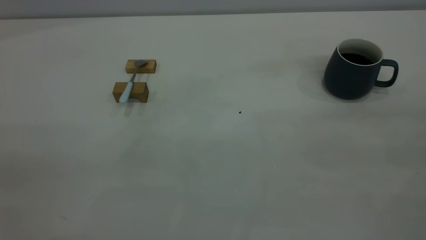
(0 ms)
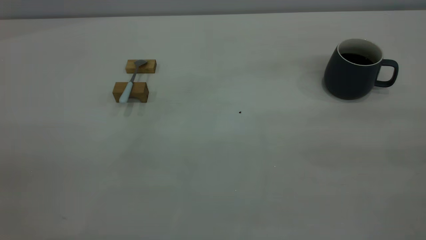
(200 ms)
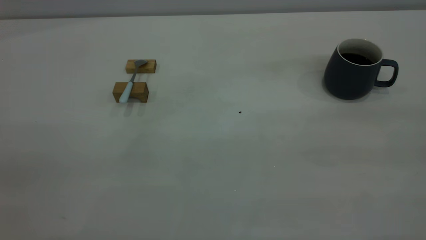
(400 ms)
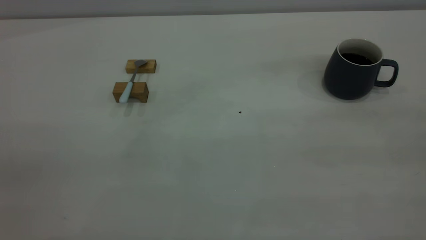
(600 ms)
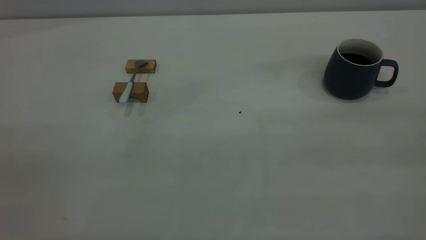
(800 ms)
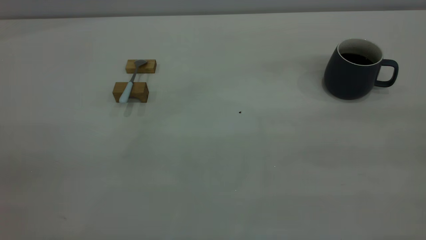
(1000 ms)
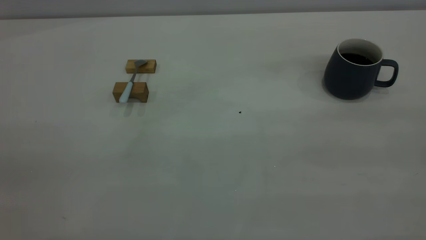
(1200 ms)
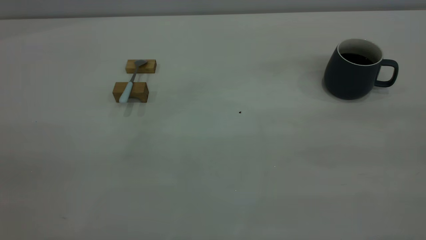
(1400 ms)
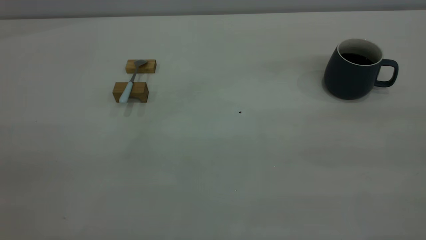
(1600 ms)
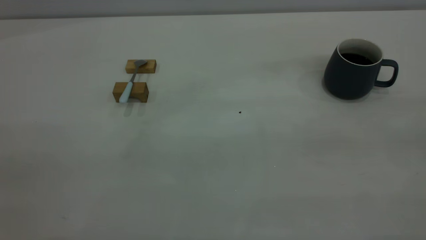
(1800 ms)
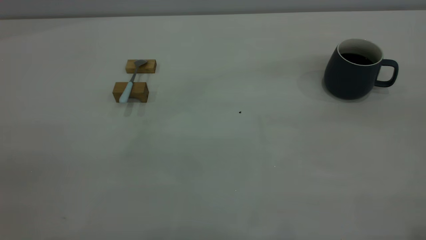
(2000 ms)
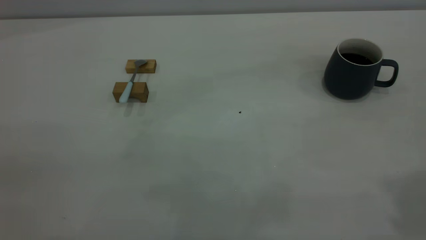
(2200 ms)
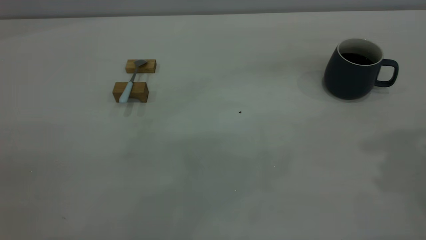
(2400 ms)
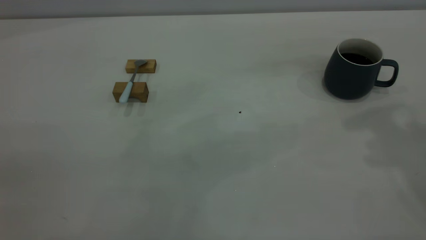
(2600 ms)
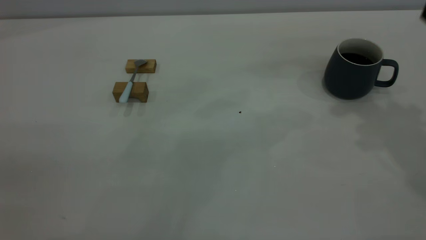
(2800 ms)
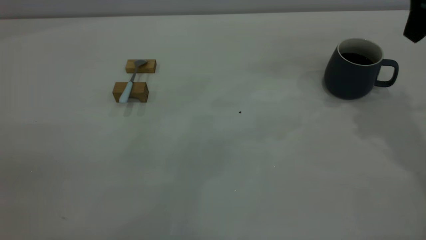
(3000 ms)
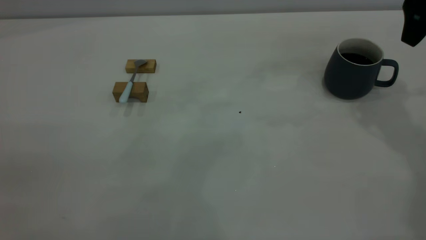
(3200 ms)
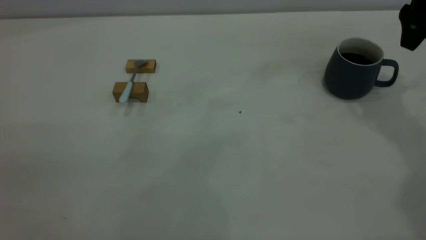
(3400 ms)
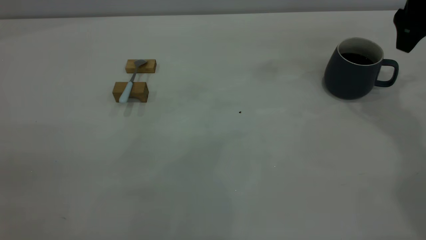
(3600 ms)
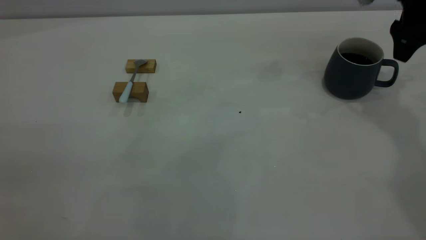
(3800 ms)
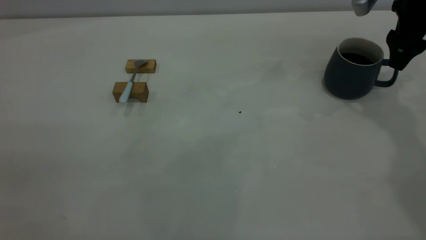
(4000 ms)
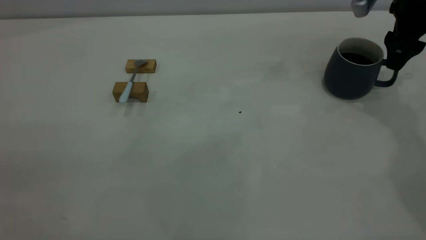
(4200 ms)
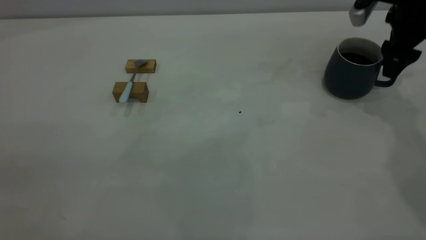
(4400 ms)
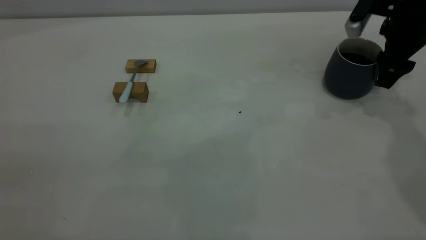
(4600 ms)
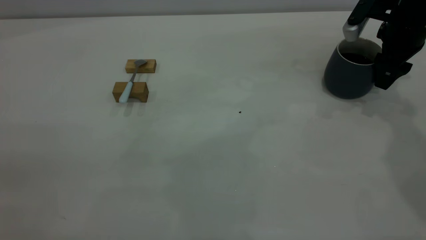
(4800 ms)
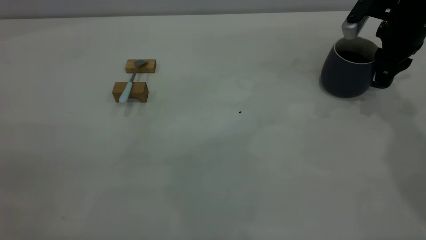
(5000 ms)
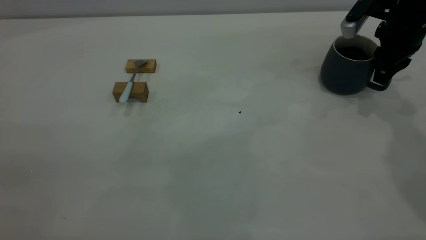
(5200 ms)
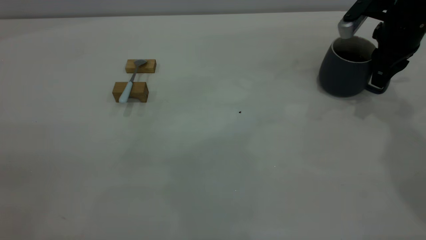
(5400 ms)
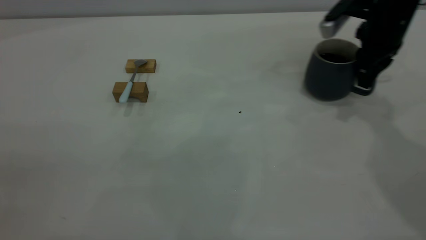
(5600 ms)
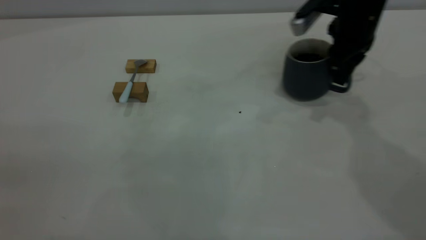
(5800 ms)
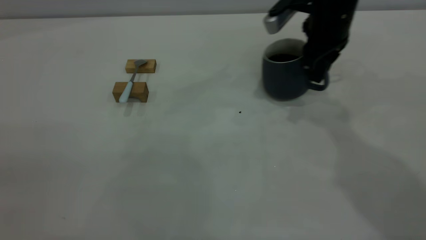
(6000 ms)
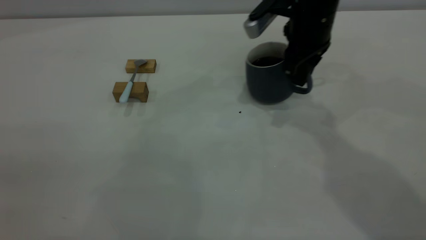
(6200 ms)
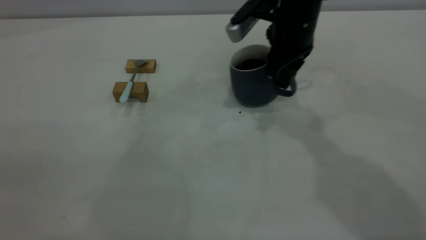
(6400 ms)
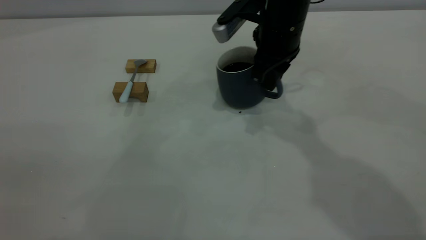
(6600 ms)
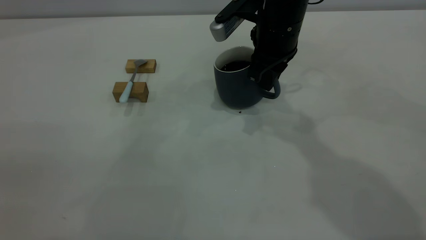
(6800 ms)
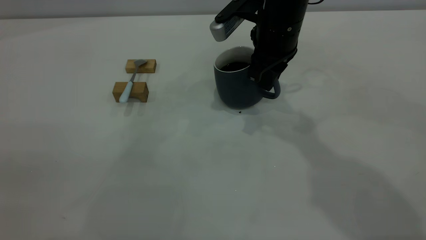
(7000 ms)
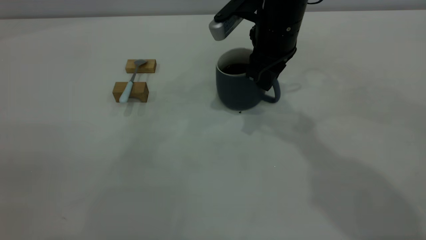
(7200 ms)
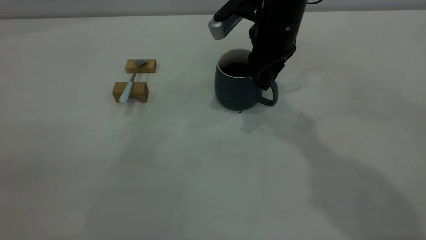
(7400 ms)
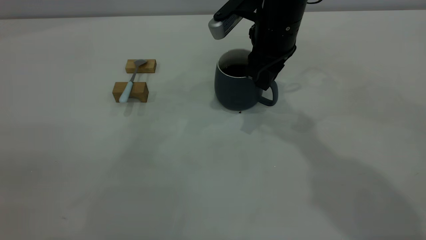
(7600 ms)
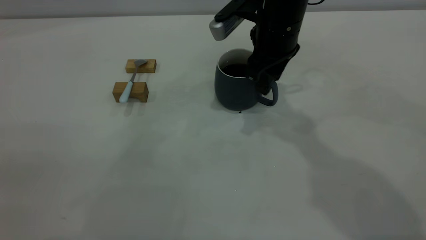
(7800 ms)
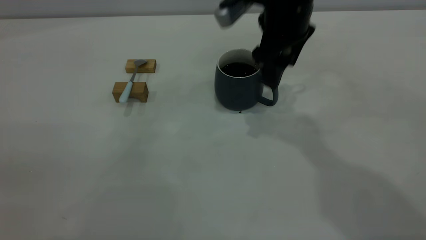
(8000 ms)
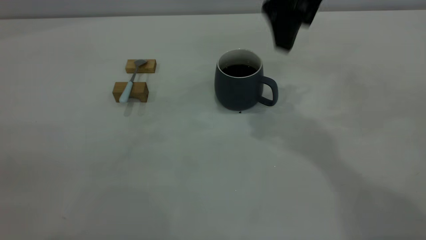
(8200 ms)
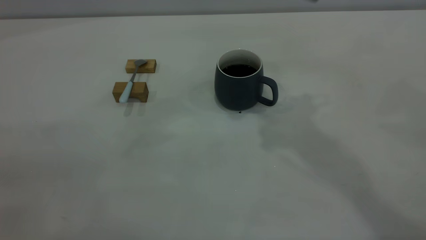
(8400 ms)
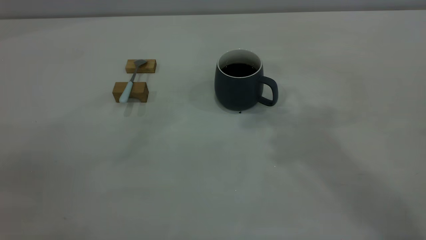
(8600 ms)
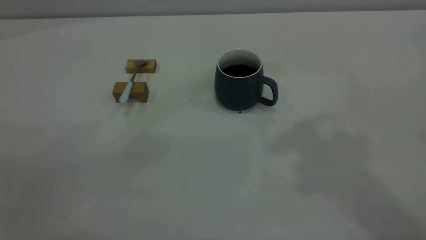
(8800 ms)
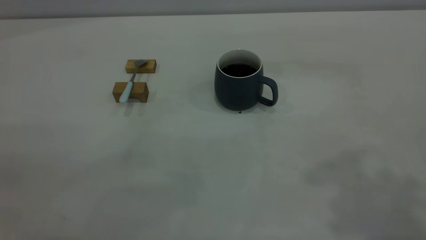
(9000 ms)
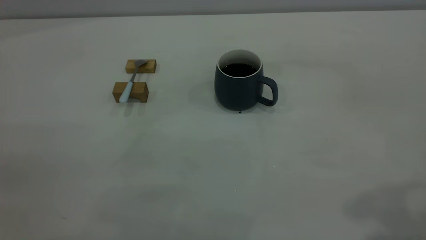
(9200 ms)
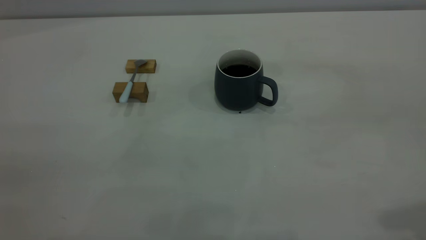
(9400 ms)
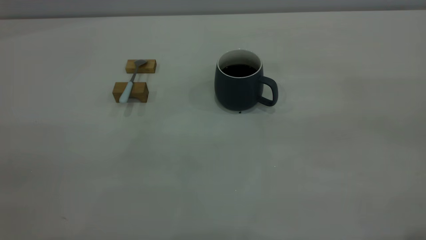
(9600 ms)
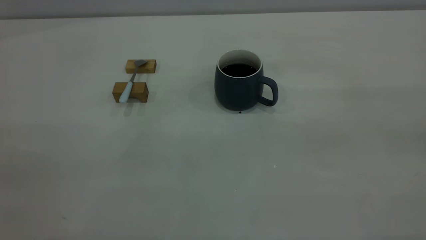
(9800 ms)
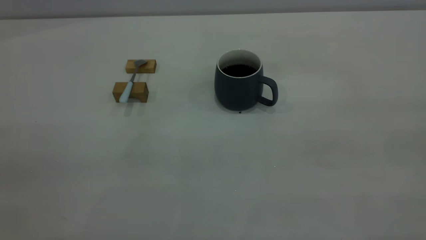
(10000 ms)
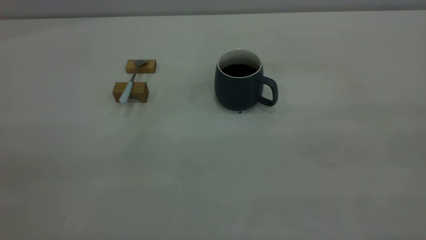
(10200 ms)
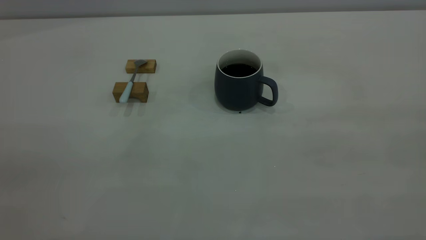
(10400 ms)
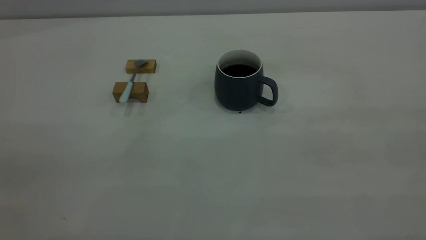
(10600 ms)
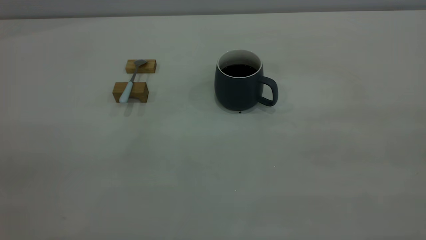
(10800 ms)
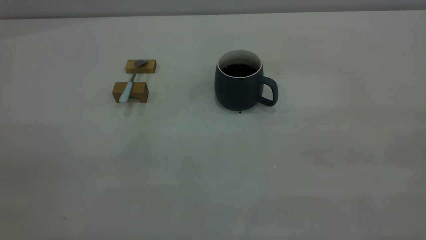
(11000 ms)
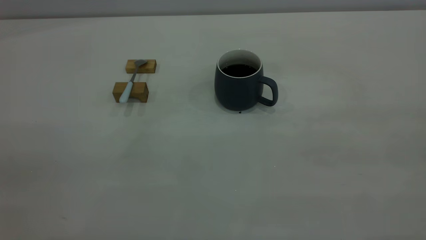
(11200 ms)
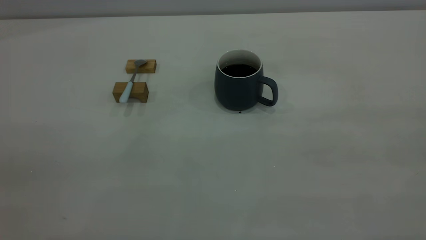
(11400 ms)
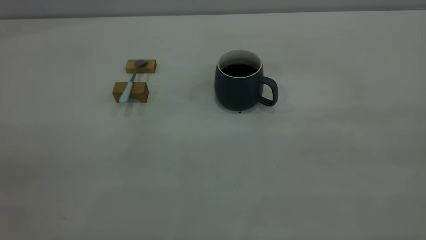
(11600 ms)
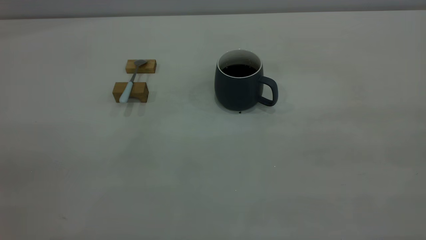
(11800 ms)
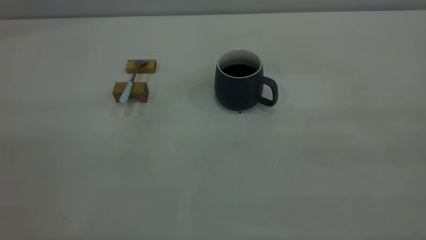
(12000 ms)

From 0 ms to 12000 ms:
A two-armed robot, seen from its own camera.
Step, from 0 ms to 8000 ms: Move the cup with coffee to the center of view.
From 1600 ms to 3000 ms: The right gripper goes approximately 35 cm forward, and opens its fingers.
From 3000 ms to 4400 ms: The right gripper travels downward and forward by approximately 15 cm.
From 4400 ms to 6000 ms: The right gripper goes some 15 cm to the left, and closes.
From 6000 ms to 7600 ms: The right gripper goes some 5 cm to the left.
From 7600 ms to 9000 ms: The right gripper moves upward, backward and to the right, approximately 40 cm, and opens its fingers.

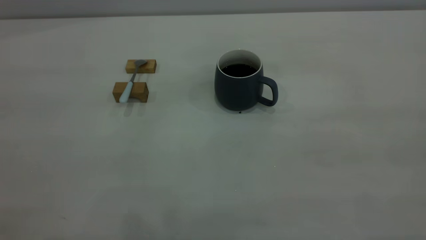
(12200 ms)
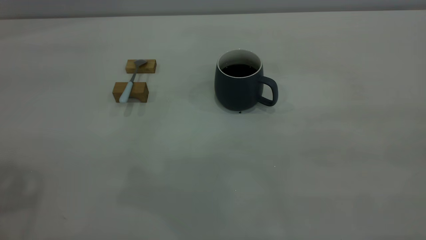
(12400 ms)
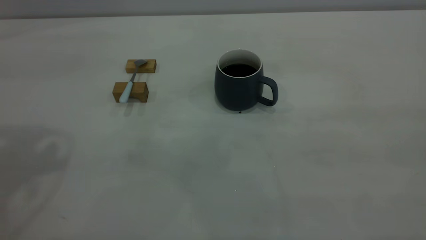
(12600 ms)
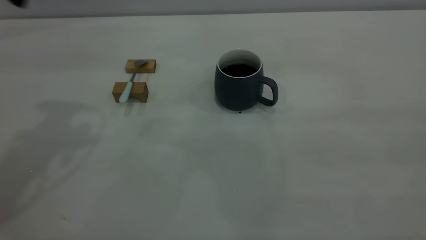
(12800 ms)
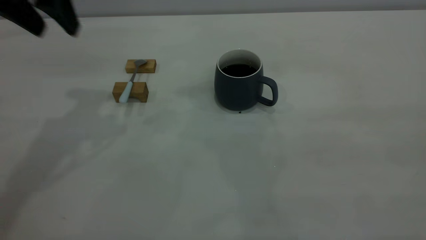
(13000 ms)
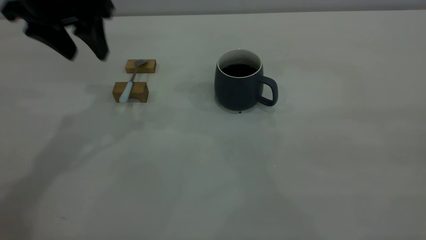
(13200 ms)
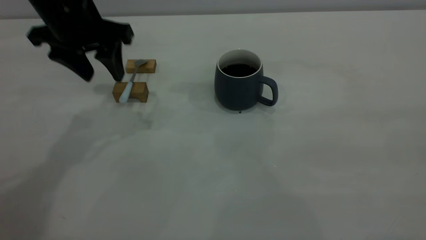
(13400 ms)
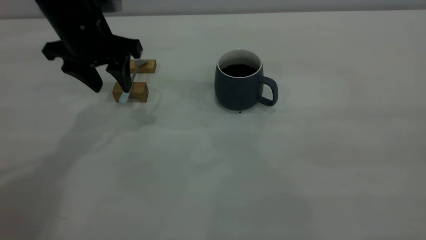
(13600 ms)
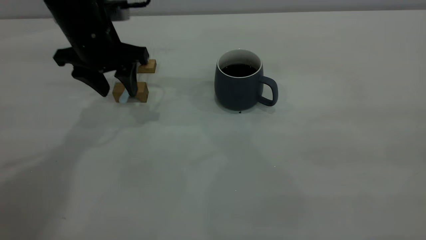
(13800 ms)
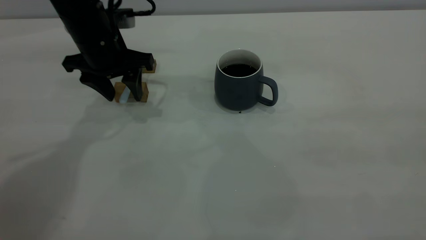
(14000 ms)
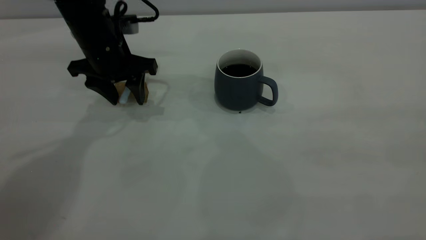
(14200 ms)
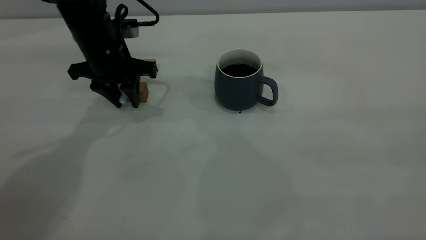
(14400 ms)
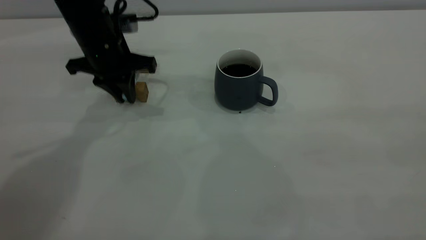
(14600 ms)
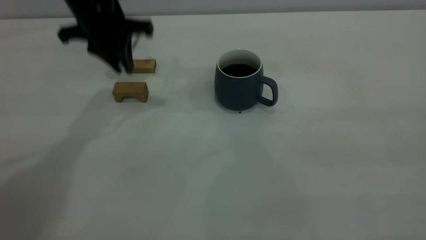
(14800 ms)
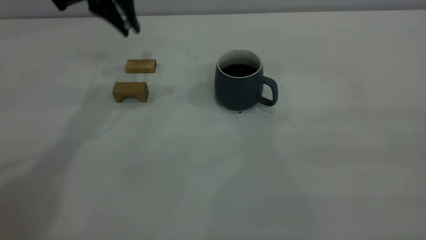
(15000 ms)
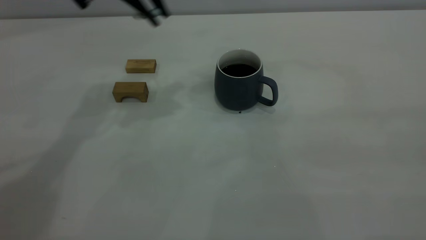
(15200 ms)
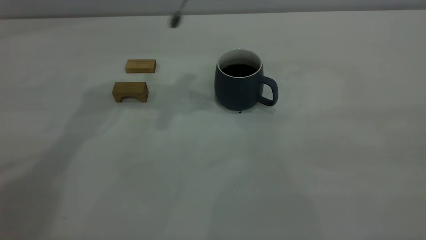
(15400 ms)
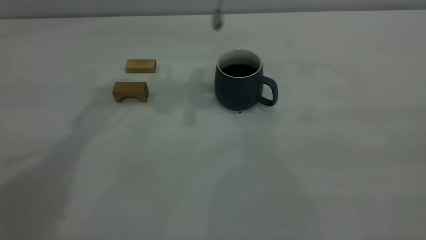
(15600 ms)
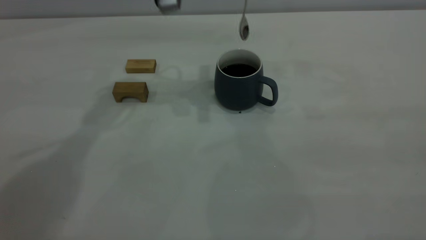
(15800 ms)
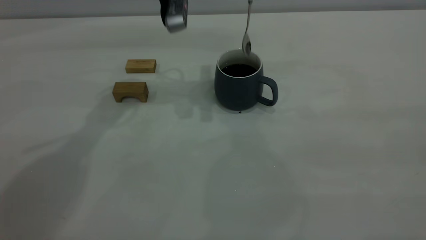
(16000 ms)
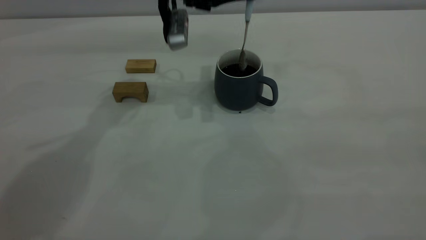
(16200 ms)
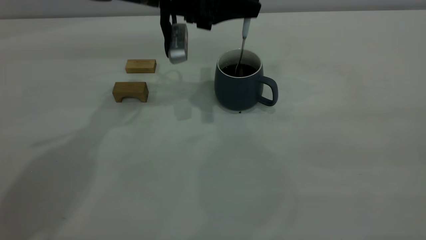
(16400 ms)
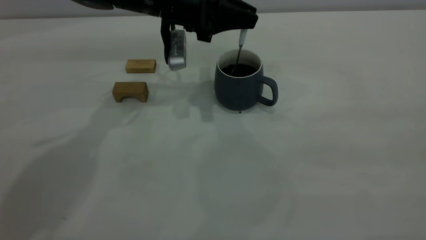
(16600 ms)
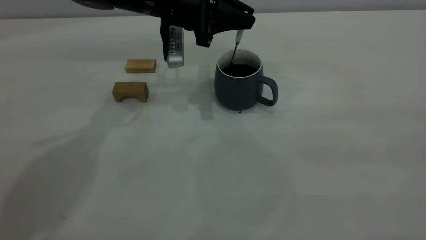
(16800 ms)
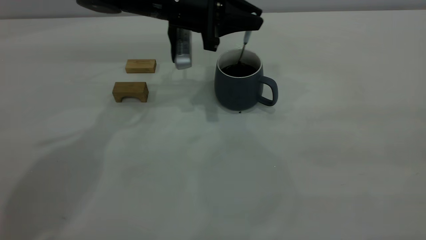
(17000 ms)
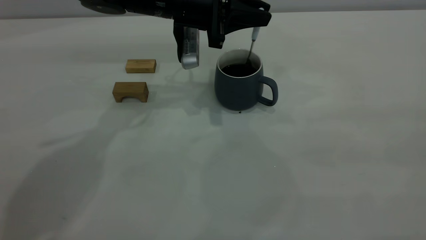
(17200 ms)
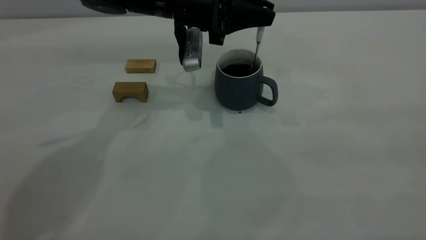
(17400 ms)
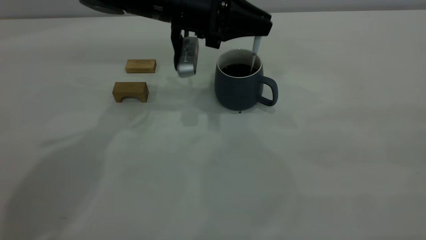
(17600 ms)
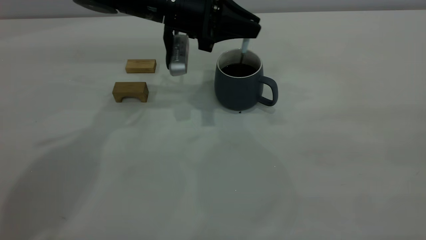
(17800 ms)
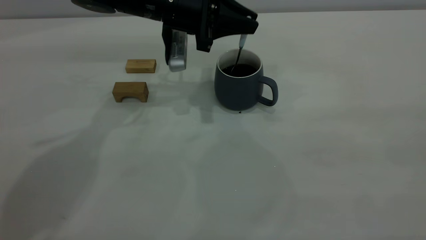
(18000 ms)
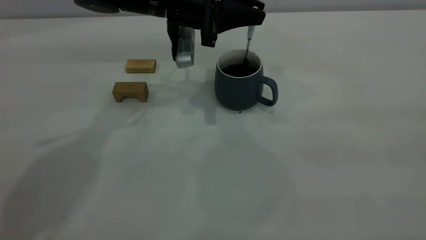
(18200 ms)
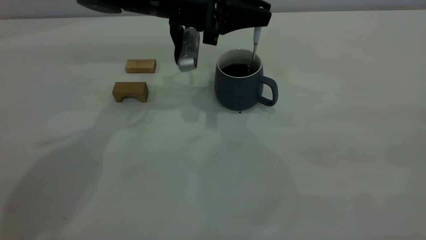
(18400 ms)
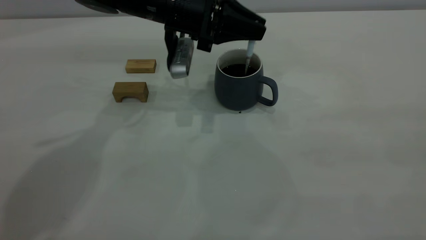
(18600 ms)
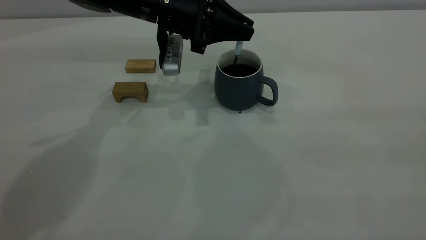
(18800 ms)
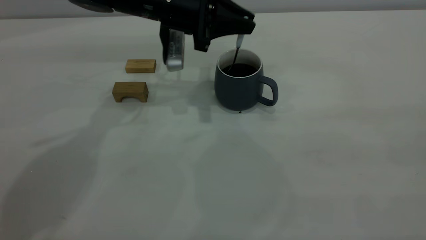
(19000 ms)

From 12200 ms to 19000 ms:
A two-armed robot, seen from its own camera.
Step, from 12200 ms to 14600 ms: Pick up the spoon.
From 12200 ms to 13600 ms: The left gripper heads forward, downward and to the right, covering roughly 40 cm.
From 13600 ms to 15000 ms: The left gripper shifts roughly 10 cm upward, and closes.
From 15000 ms to 16200 ms: The left gripper moves to the right and downward, approximately 10 cm.
From 16200 ms to 19000 ms: The grippers move only a little.
